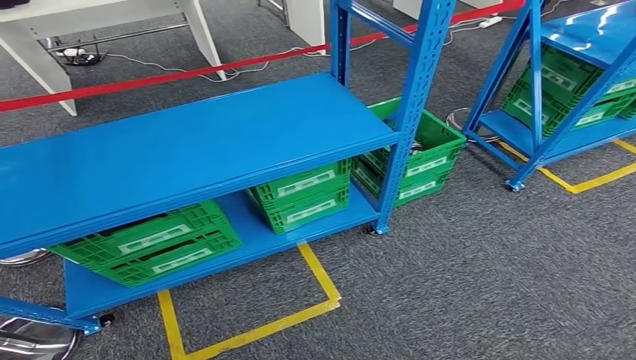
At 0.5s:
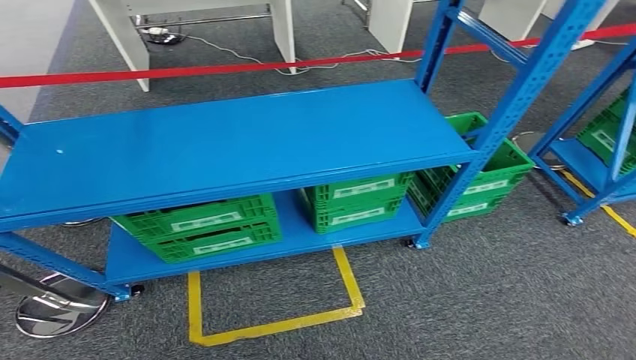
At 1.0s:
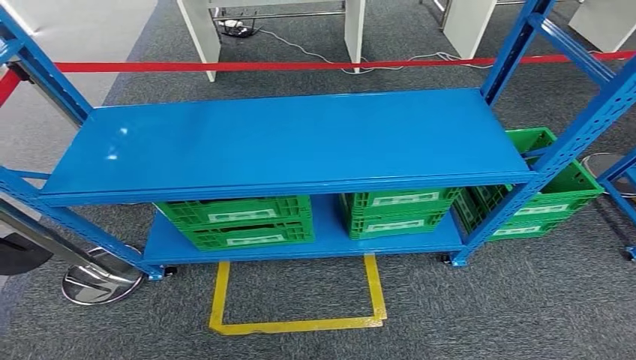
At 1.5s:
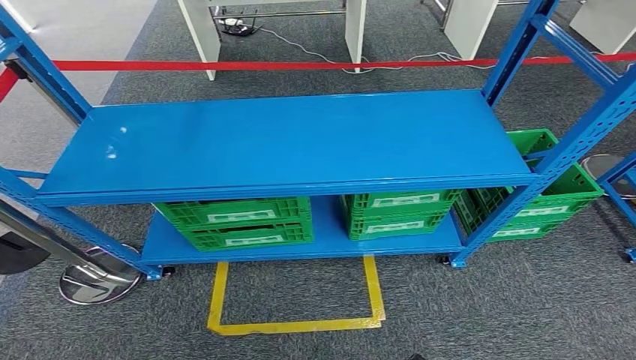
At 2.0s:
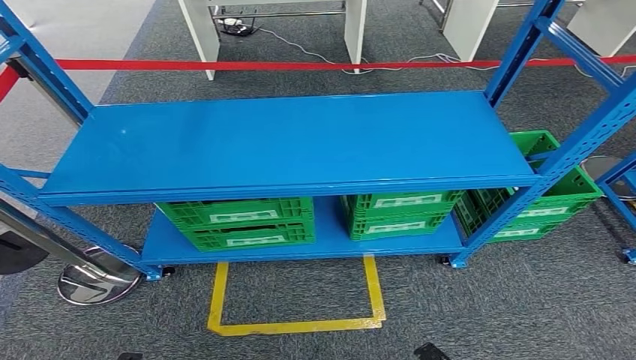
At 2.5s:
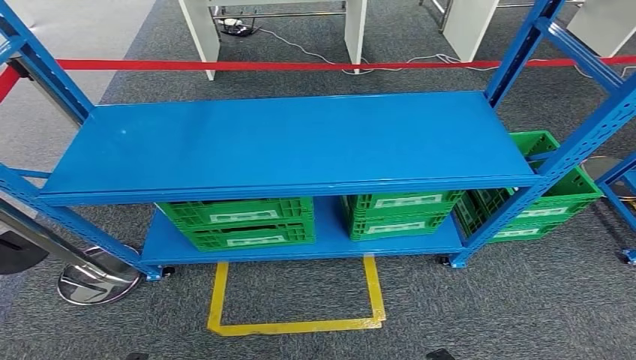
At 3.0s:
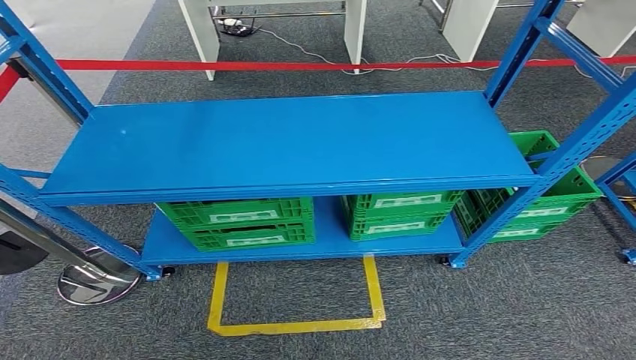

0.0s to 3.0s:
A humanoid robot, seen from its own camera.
Step, 0.0s to 2.5s: Move to the initial position of the workbench.
1.5s to 3.0s: The right hand changes place by about 5 cm; the left hand shifts some 5 cm downward.
